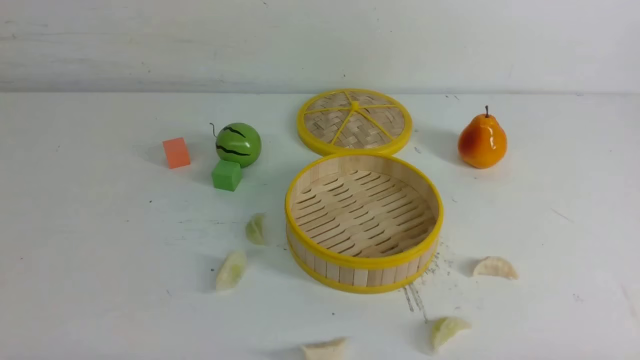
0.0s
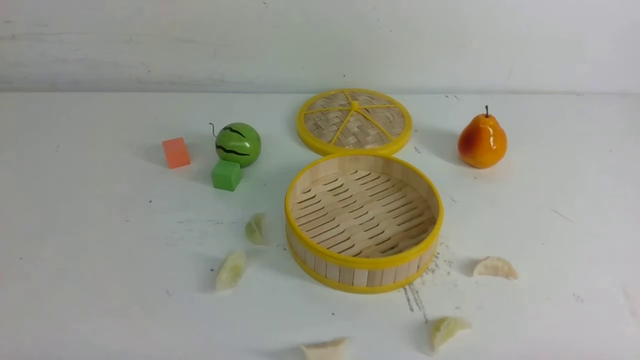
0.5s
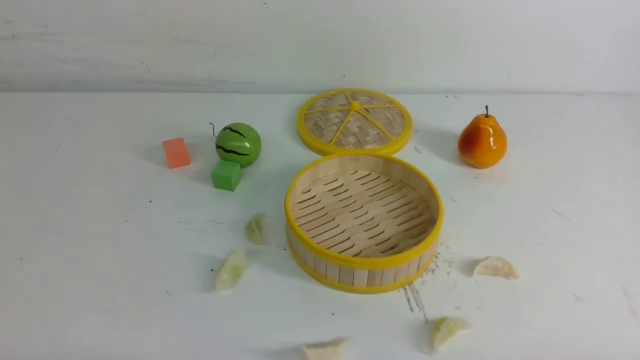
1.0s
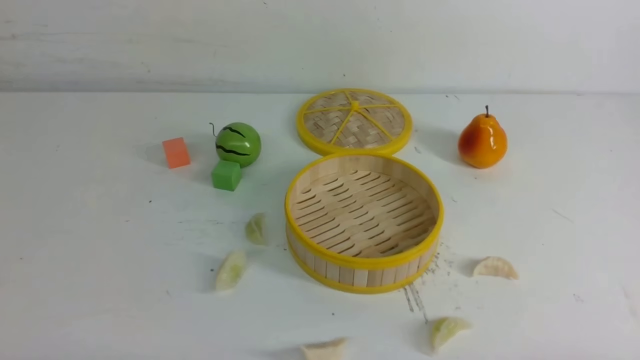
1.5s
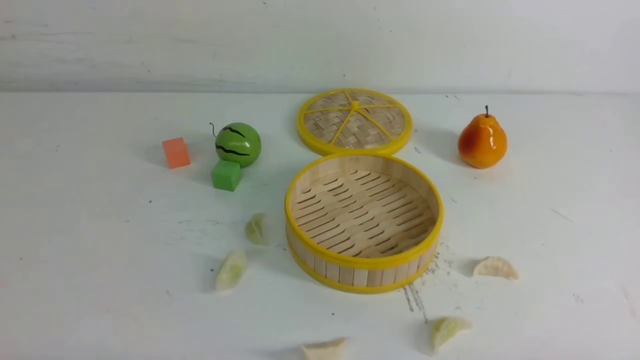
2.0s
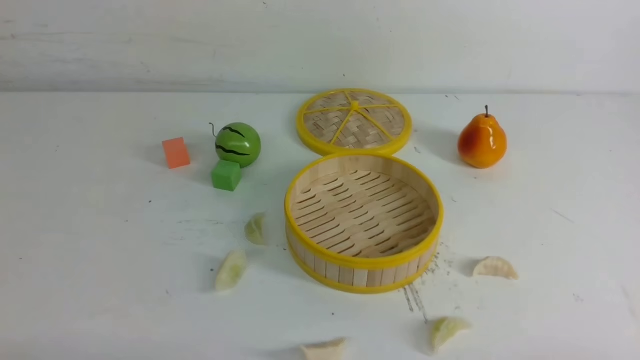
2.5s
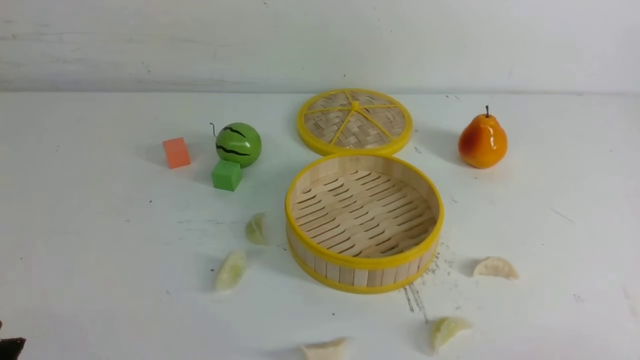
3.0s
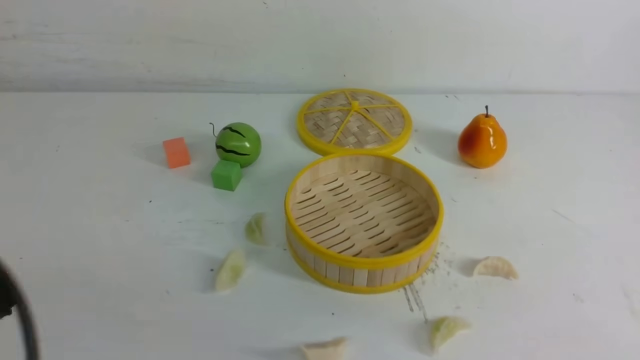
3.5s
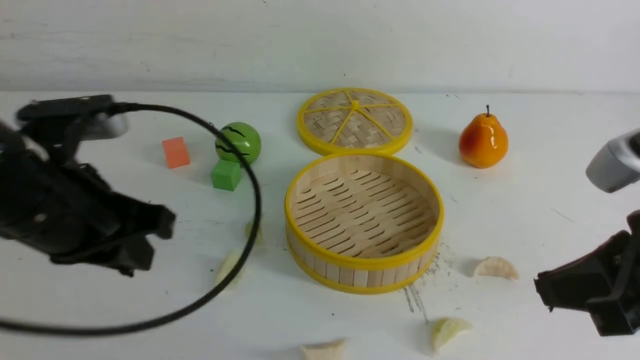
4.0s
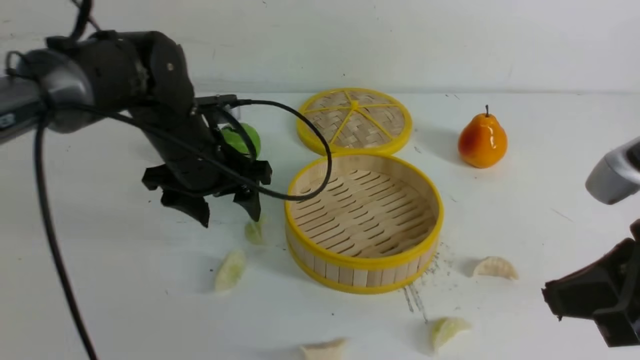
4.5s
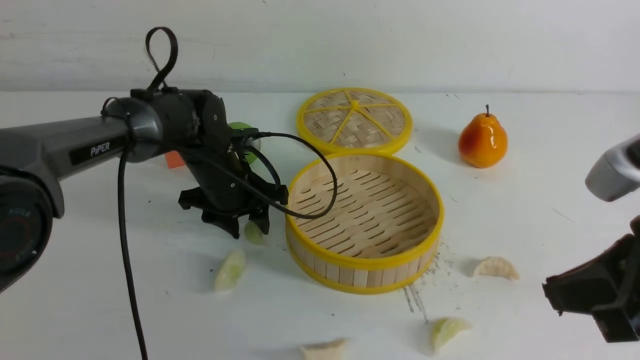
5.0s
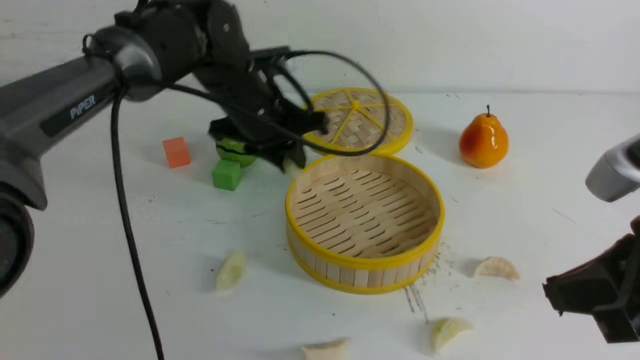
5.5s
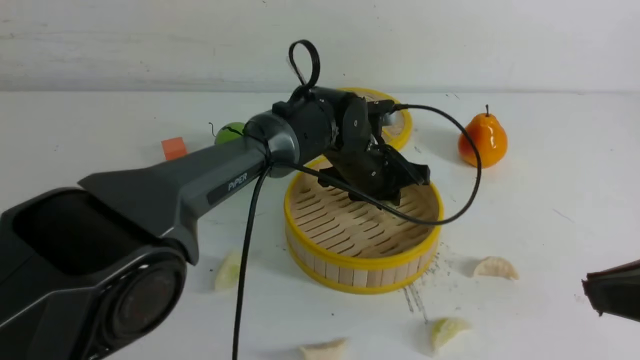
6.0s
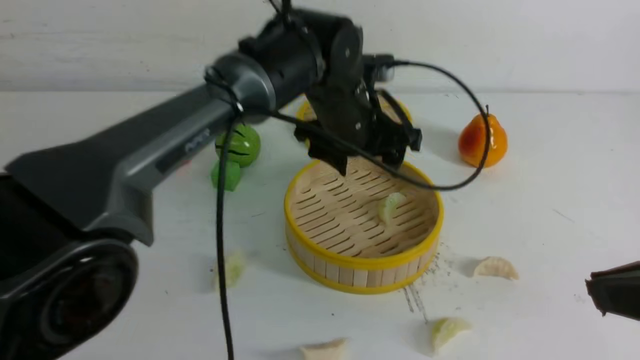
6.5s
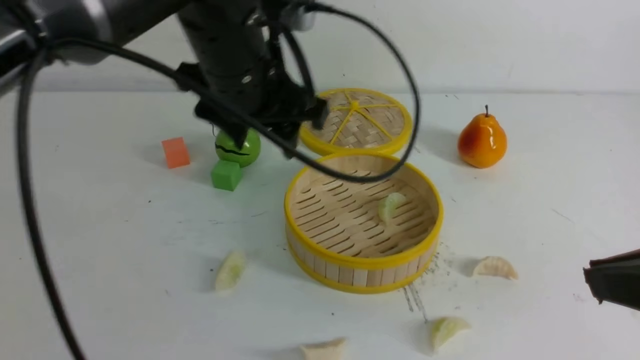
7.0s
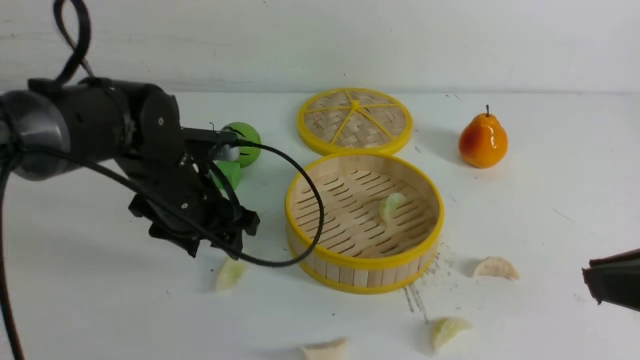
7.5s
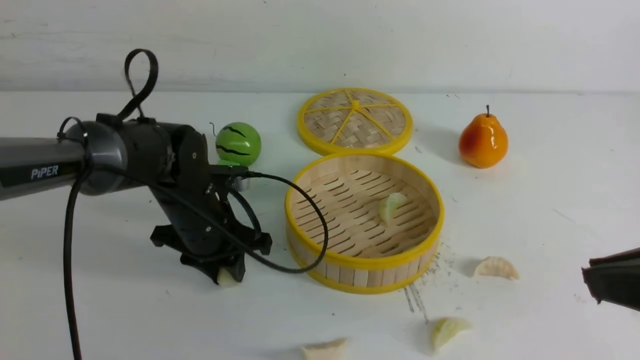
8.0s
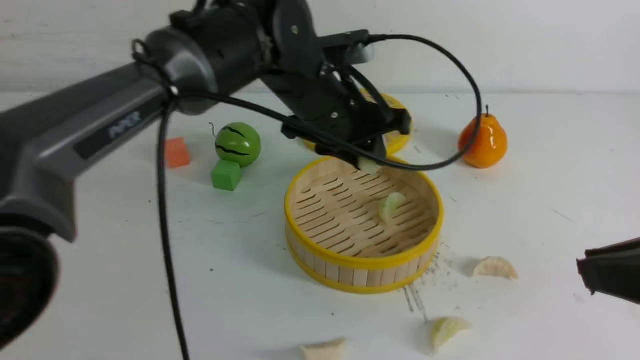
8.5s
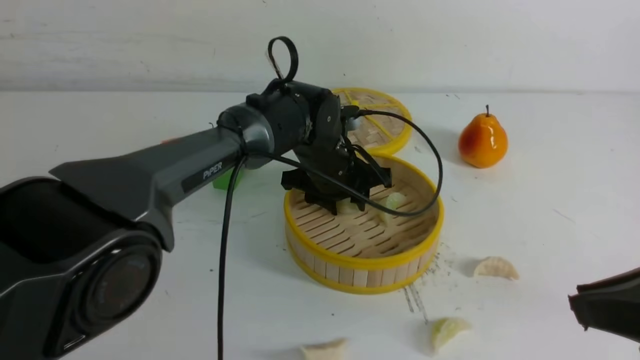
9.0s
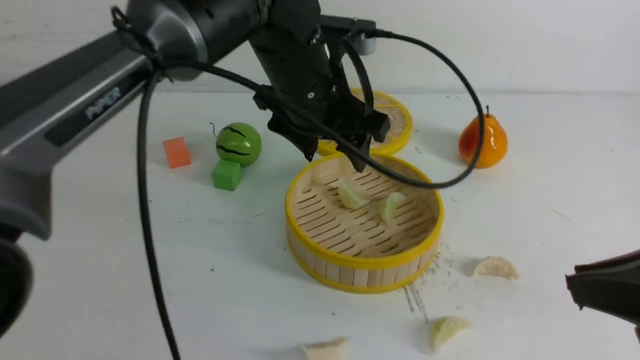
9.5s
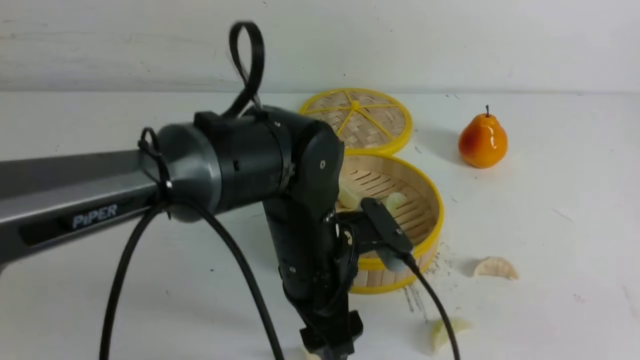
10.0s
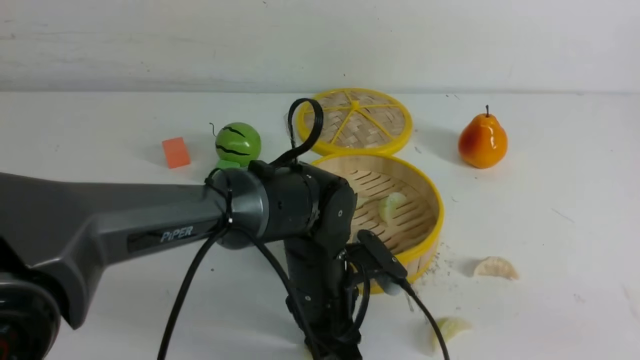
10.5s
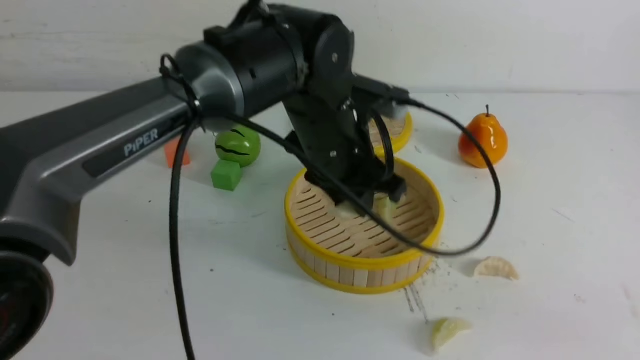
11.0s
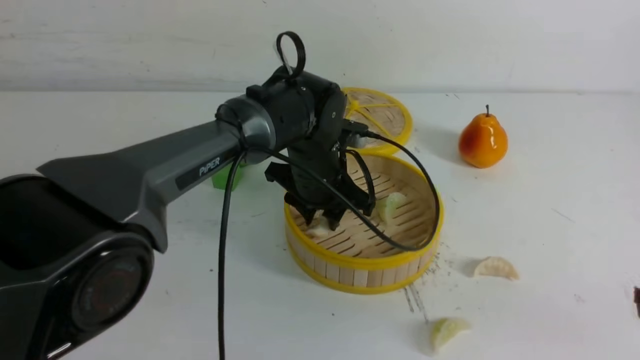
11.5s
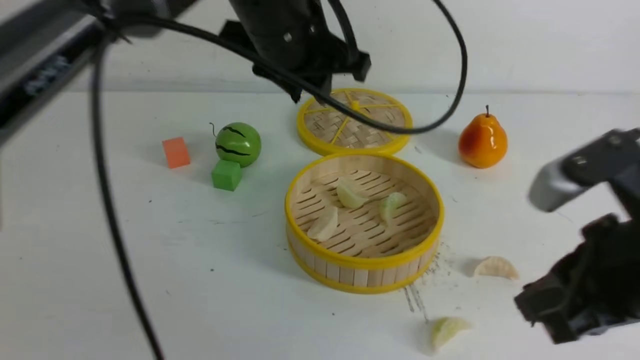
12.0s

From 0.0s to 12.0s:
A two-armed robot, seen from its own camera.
Task of the whole recording: put the dumplings into the steamer on the white table.
Step, from 0.0s to 5.0s: use the left arm to grab a dumpling.
Step, from 5.5s to 6.0s: use the left arm to put the dumpling into the steamer.
Step, from 7.0s to 8.0s: use the left arm to grab a dumpling.
Step, from 8.5s to 9.0s: use the left arm to put the dumpling into the steamer.
Step, from 9.5s to 10.5s: use the left arm to grab a dumpling.
Step, from 11.0s to 11.5s: use the left arm to put the dumpling into the steamer.
From 2.0s to 4.0s: The right gripper goes some 20 cm upward, forward and to the left, and closes. The left gripper moves forward, upward and to the right, approximately 25 cm.
From 4.0s to 6.0s: The left gripper travels to the right, forward and downward by approximately 30 cm, and opens and closes again.
From 6.0s to 8.0s: The left gripper shifts some 15 cm to the left, and opens, then closes again.
From 8.0s to 10.0s: The left gripper goes approximately 15 cm to the right and backward, and opens its fingers; the right gripper shifts some 5 cm backward.
From 10.0s to 12.0s: The left gripper shifts some 20 cm upward and forward, and closes. Meanwhile the right gripper is displaced forward, downward and to the left by approximately 15 cm.

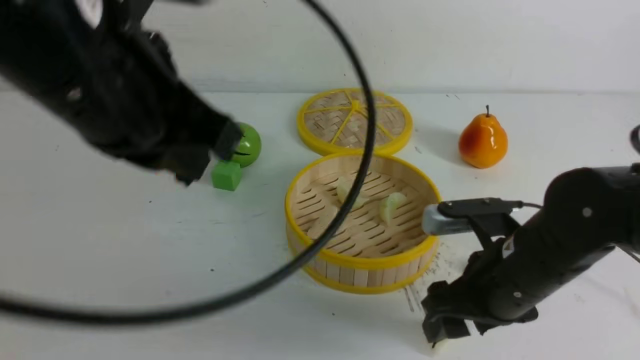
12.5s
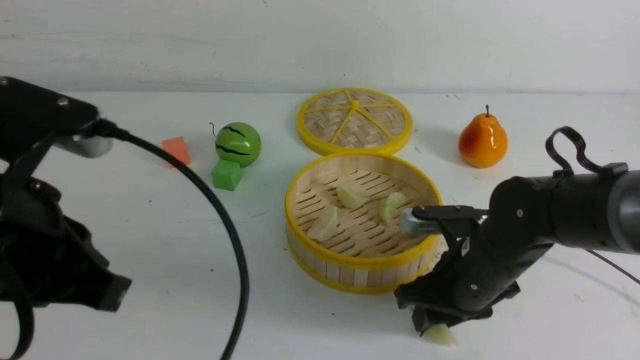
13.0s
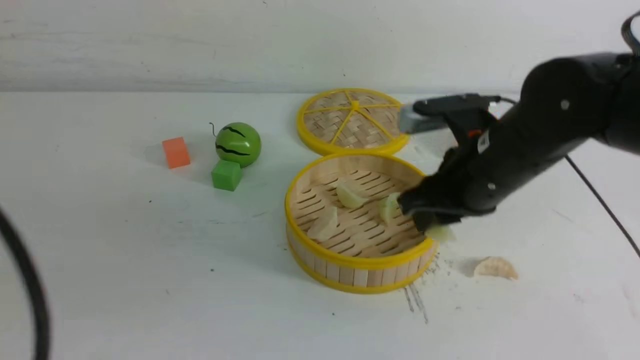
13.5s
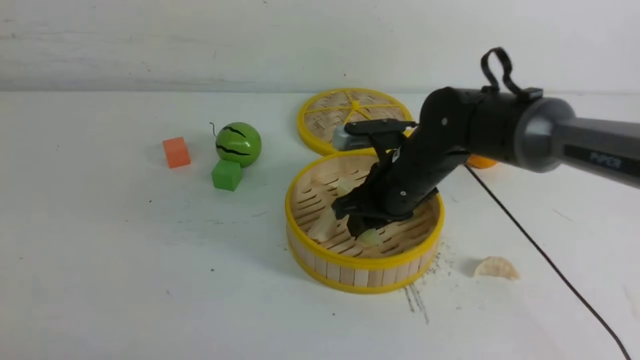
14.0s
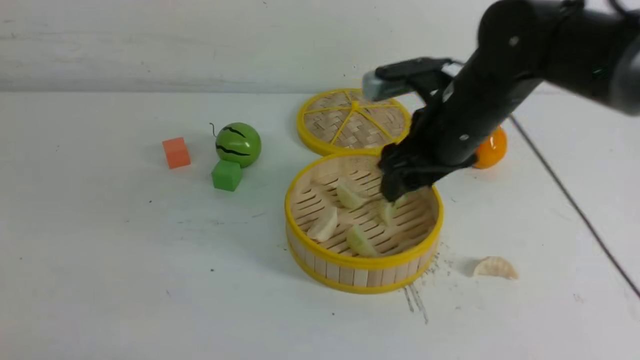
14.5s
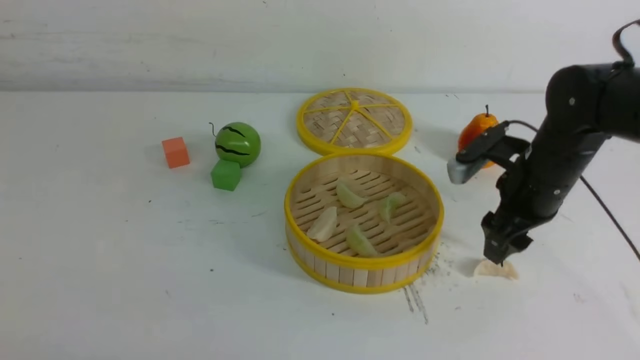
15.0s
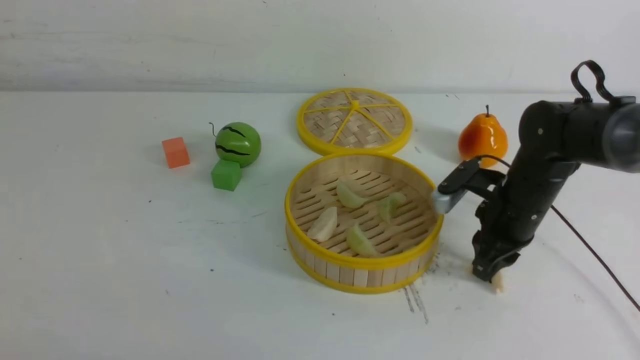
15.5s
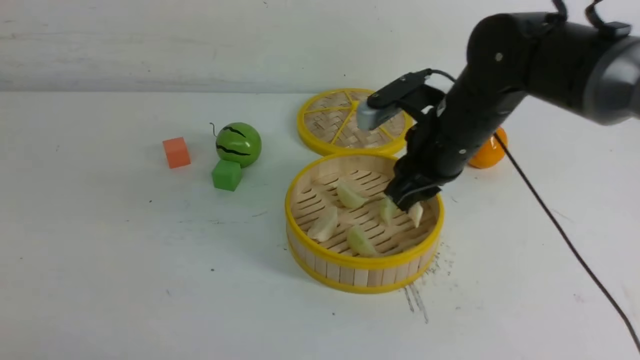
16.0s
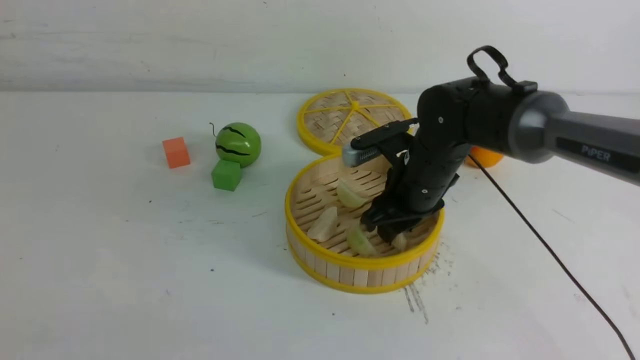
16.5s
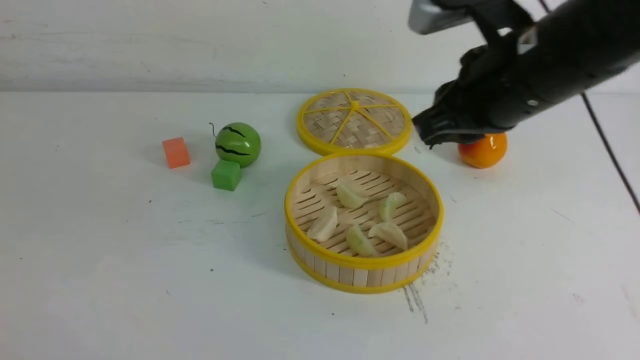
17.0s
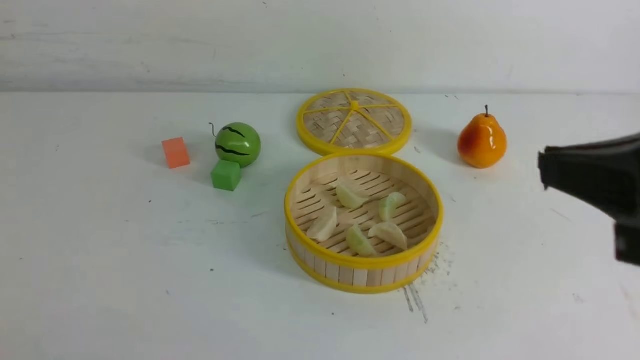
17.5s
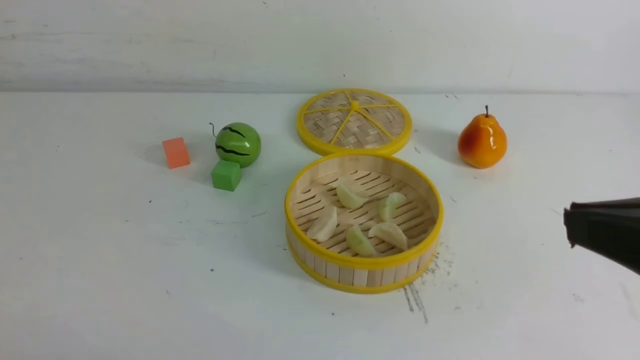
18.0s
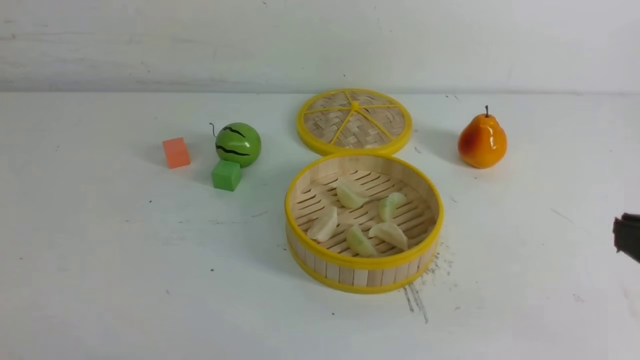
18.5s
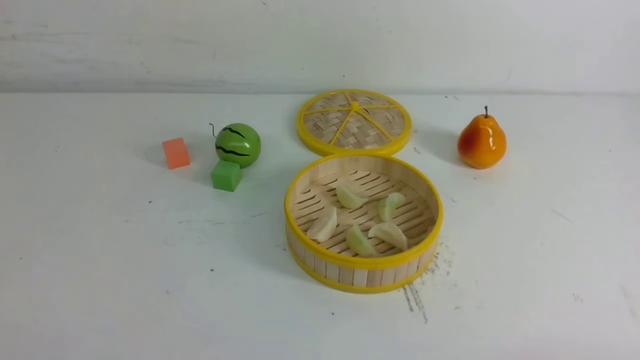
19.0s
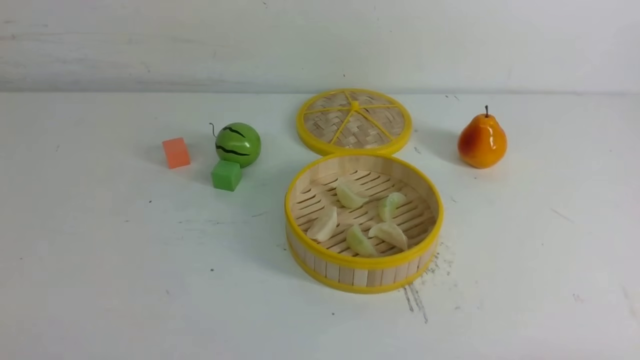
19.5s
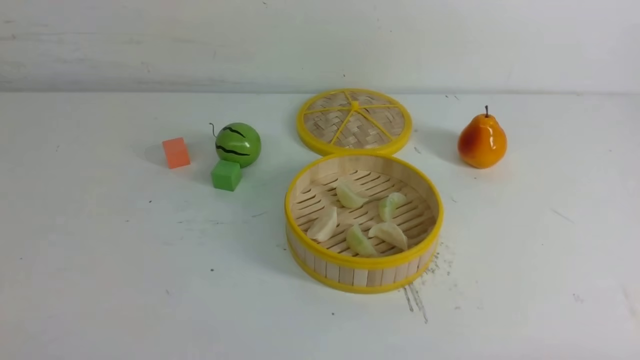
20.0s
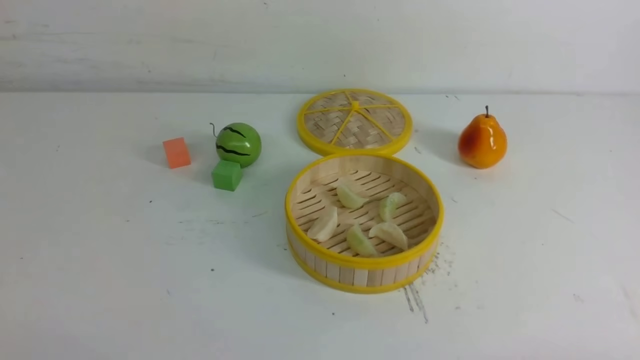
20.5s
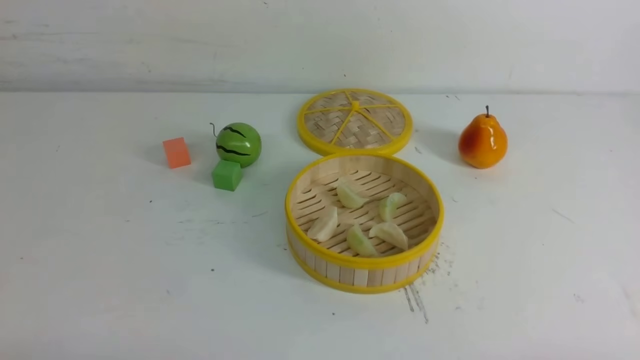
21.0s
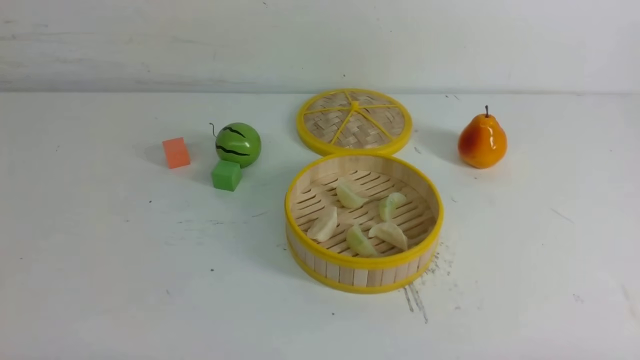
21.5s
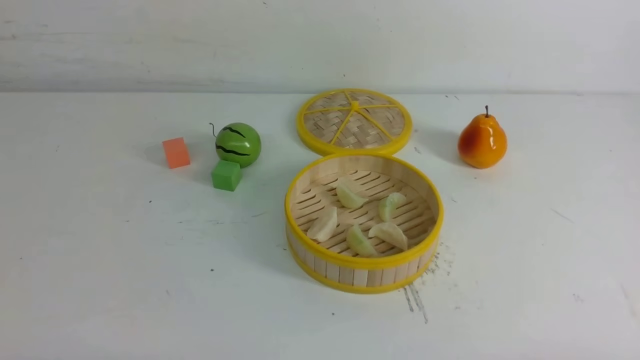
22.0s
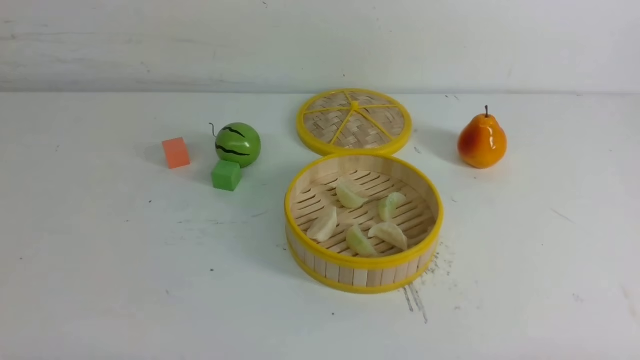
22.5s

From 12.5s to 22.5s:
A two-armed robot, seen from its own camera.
Task of the whole recording: put the dumplings into the steamer on the white table.
Step, from 13.5s to 14.0s: use the right arm to put the dumpling into the steamer.
Step, from 14.5s to 15.5s: use the right arm to grab a dumpling.
Step, from 16.0s to 16.5s: use the right arm to put the dumpling into the steamer.
From 12.5s to 14.5s: The right gripper is displaced forward and upward by approximately 15 cm, and closes, then opens again. The left gripper travels backward, to the left and downward by roughly 25 cm.
From 14.5s to 16.5s: The right gripper shifts about 5 cm downward, and goes to the right and returns, about 10 cm each way.
From 16.5s to 18.5s: The right gripper travels backward and to the right by some 35 cm, and closes its fingers.
